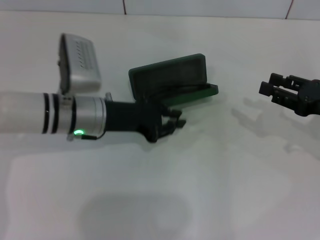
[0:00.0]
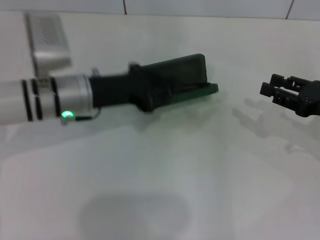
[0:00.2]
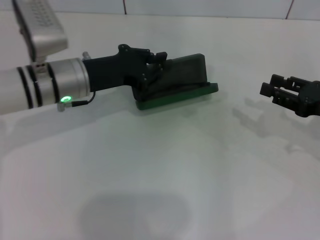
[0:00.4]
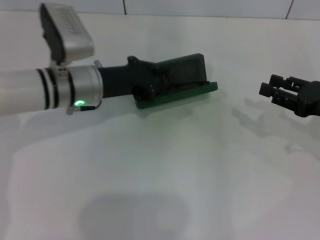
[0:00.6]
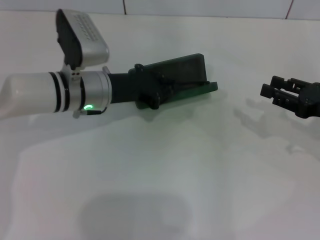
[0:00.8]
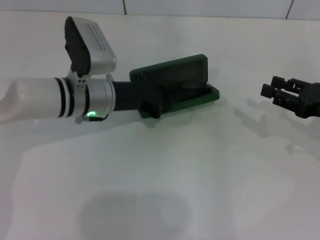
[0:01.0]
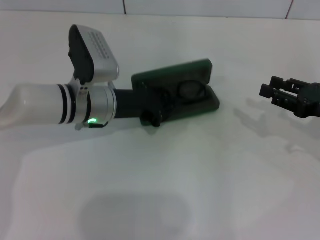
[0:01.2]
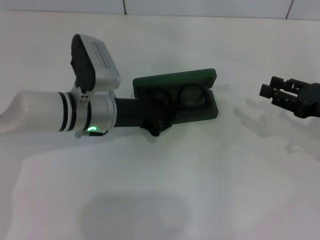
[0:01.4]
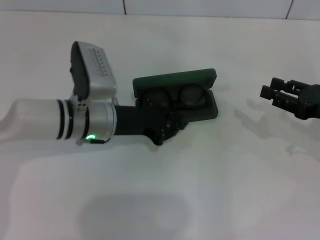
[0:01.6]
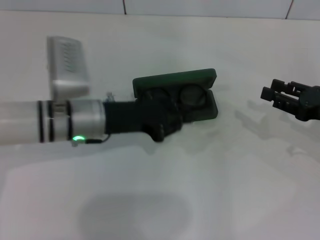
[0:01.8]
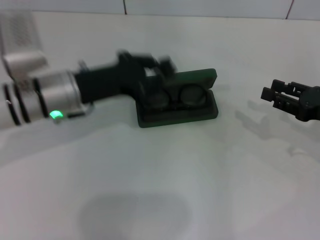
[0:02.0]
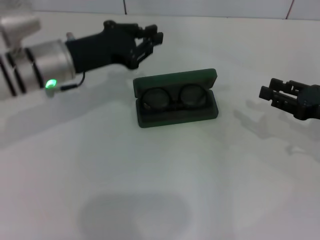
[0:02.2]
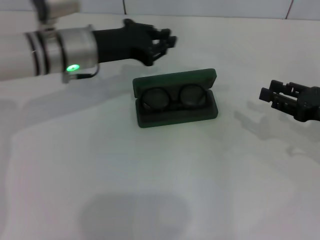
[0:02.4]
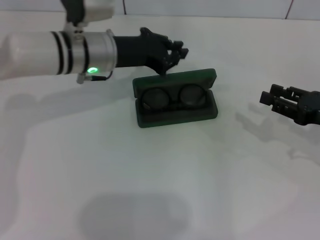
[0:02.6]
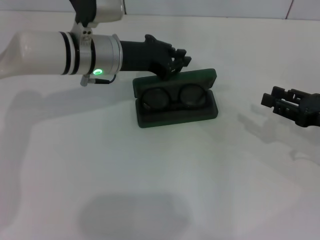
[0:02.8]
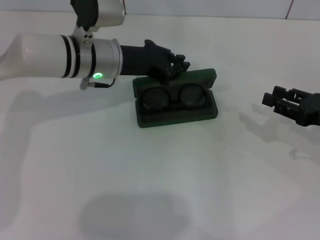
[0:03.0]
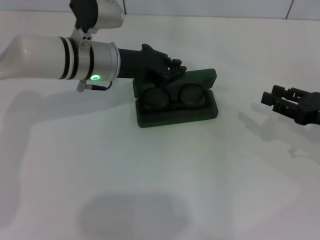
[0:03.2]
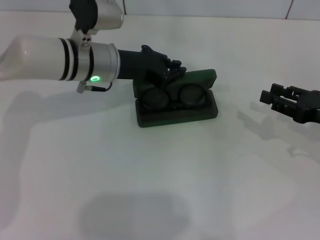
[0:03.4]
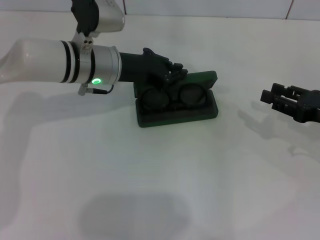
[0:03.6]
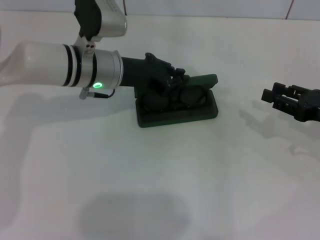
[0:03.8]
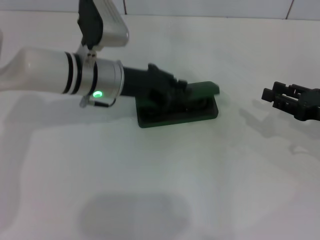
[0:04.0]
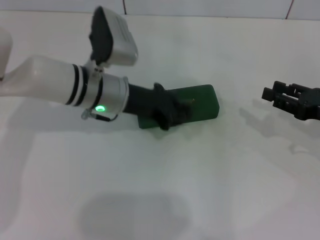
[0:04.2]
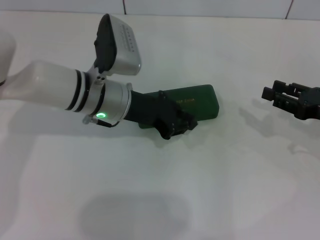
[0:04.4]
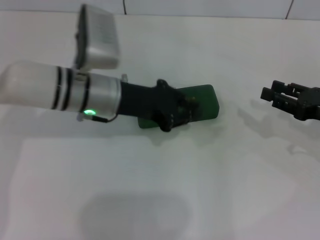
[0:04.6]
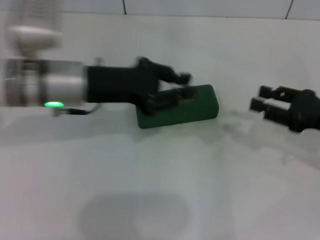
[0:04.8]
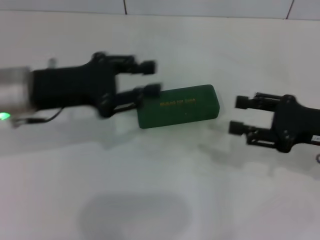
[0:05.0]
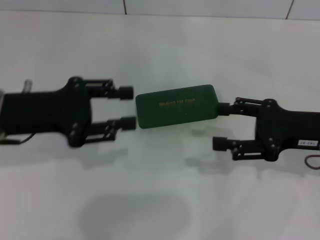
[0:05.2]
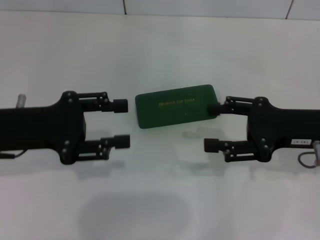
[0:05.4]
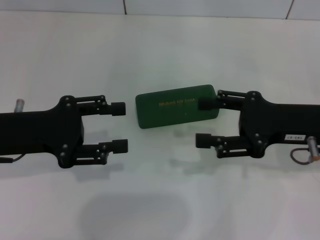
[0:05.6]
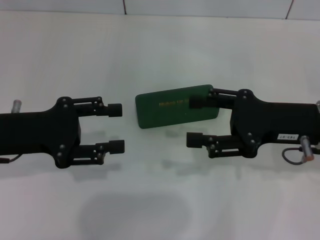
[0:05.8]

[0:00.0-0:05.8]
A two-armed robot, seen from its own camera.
Step, 0:00.0 to 0:04.2: Close the glasses case with your left hand.
0:00.0 to 0:01.4: The grippers move only a little.
0:01.4 to 0:02.8: The left gripper goes approximately 10 cm upward and forward.
0:02.8 to 0:04.4: The left gripper shifts by approximately 5 cm.
0:04.4 to 0:05.8: The left gripper shifts about 20 cm to the left and backward, and opens up, while the right gripper shifts roughly 10 cm to the left and upward, and opens.
